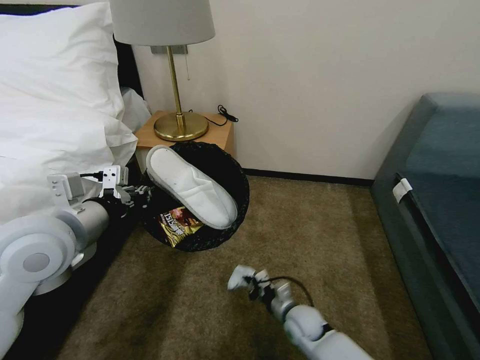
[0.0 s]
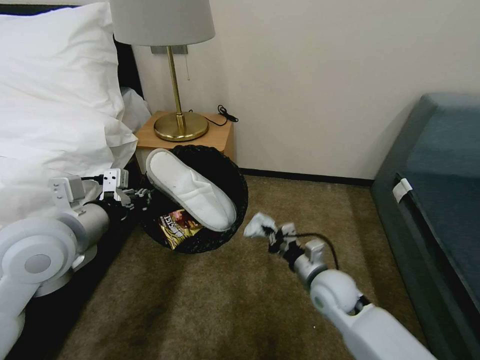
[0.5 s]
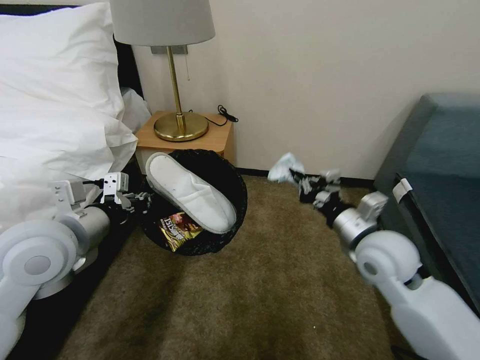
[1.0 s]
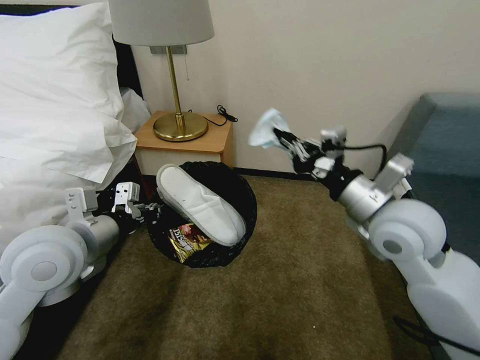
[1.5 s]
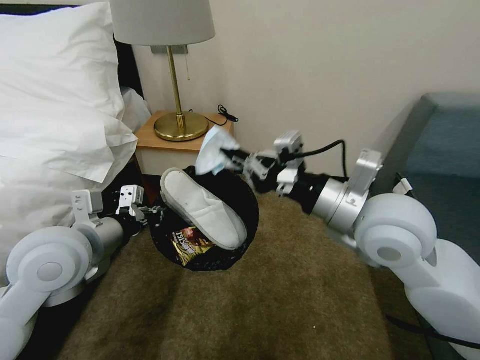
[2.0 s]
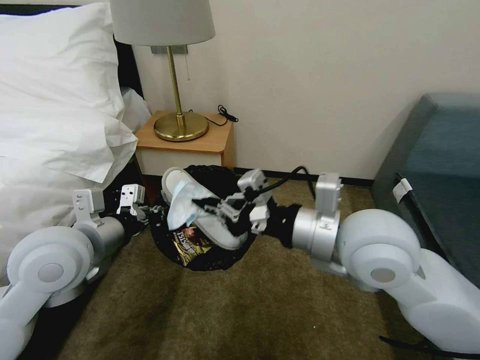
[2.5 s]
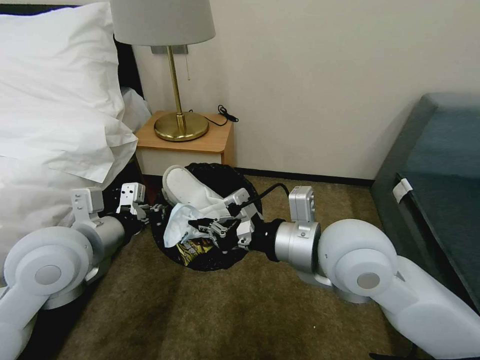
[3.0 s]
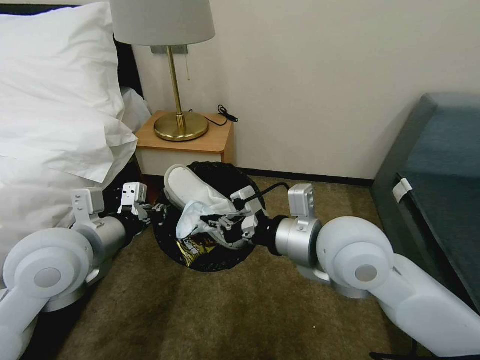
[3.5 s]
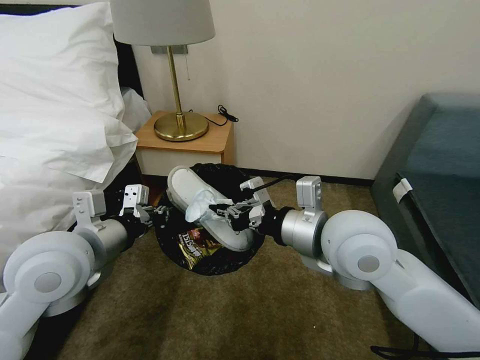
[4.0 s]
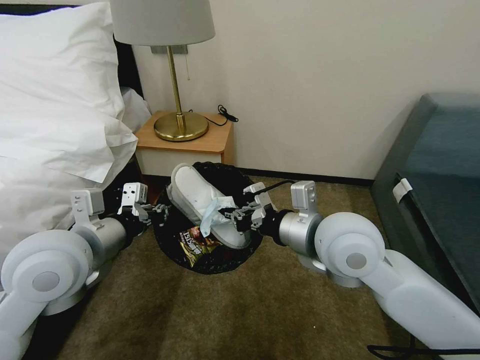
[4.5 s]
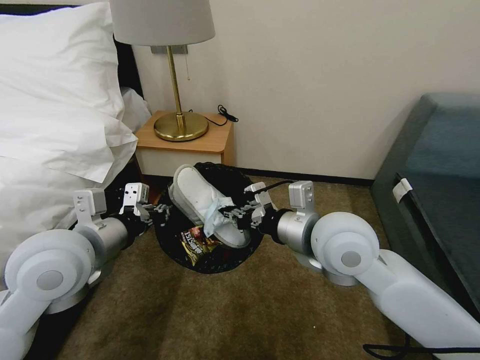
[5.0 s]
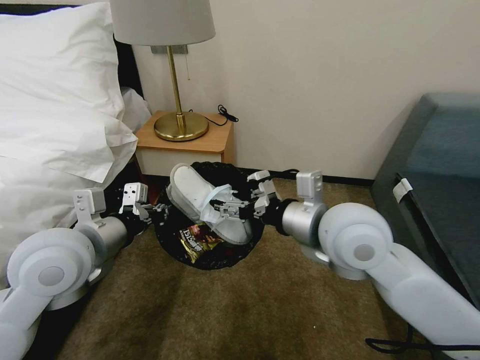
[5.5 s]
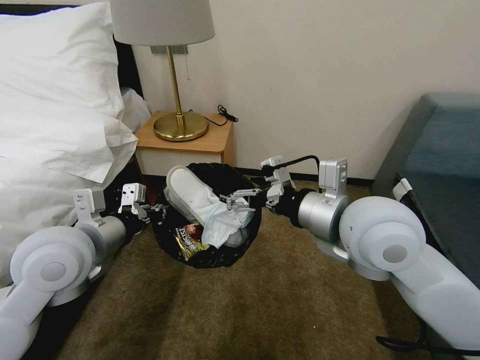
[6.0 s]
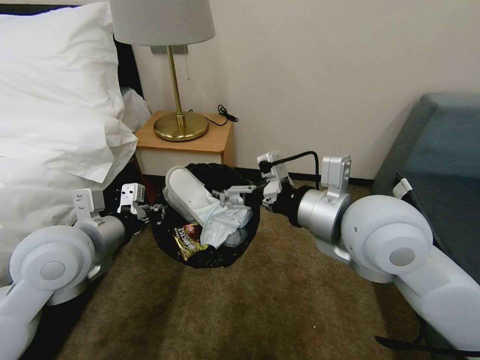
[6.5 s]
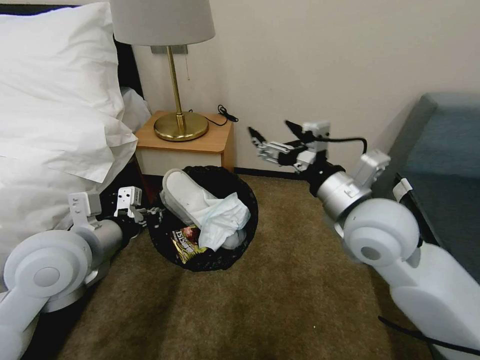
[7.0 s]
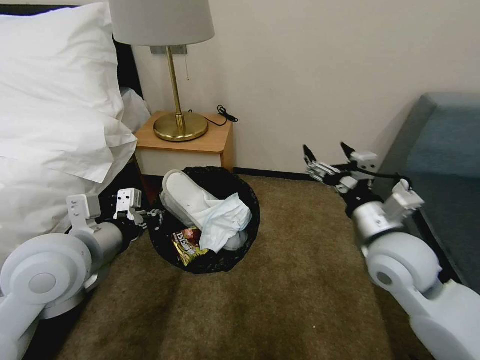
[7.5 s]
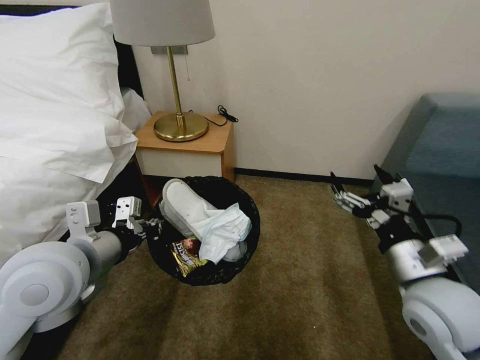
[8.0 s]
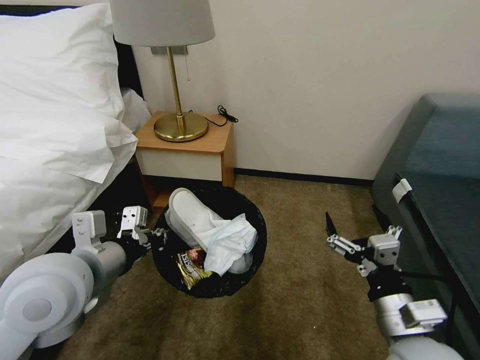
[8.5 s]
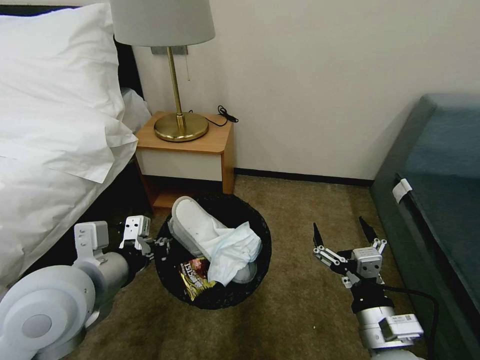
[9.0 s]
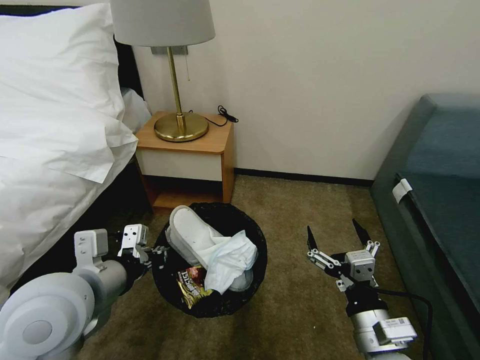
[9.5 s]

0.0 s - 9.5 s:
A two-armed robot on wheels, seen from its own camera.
Task of the whole recording: Pick up the trash bin, then pick up the garbage on the floor and place it into the trash bin.
0.0 s - 2.0 s: The right gripper travels upward by some 40 cm.
2.0 s - 4.0 s: The right gripper shifts by some 5 cm.
4.0 s - 5.5 s: The right gripper opens its fingers.
5.5 s - 7.5 s: The right gripper shifts some 15 cm to the right and downward.
7.5 s - 9.5 s: The right gripper travels backward and downward by some 20 cm; the left gripper moves approximately 5 cm.
